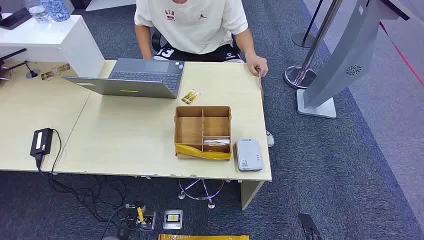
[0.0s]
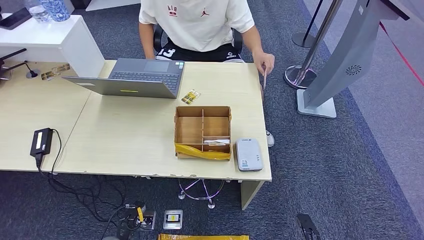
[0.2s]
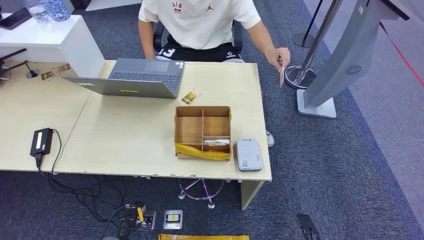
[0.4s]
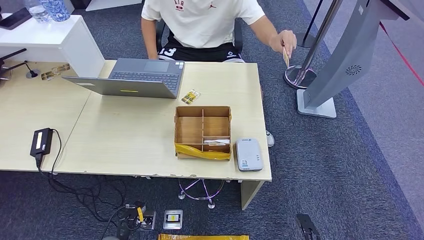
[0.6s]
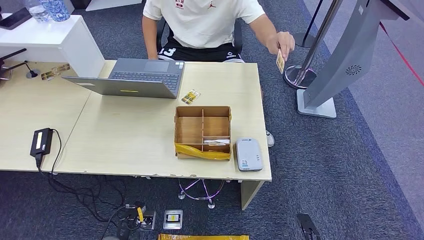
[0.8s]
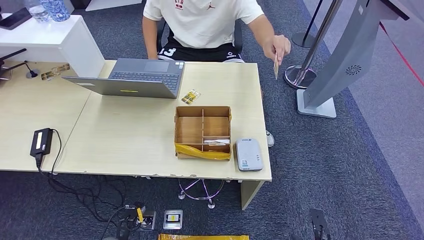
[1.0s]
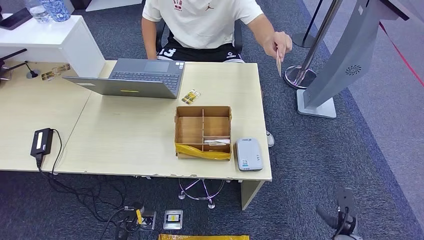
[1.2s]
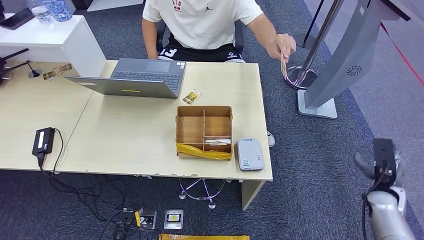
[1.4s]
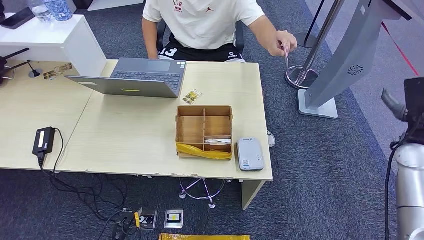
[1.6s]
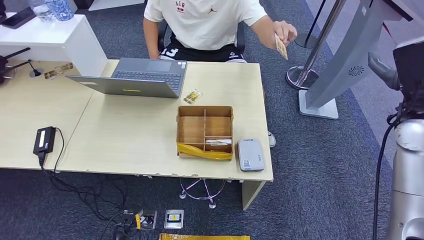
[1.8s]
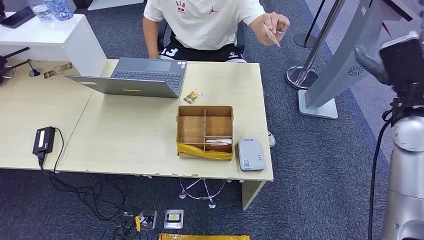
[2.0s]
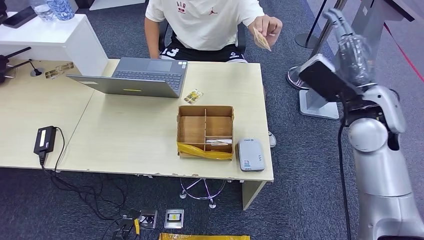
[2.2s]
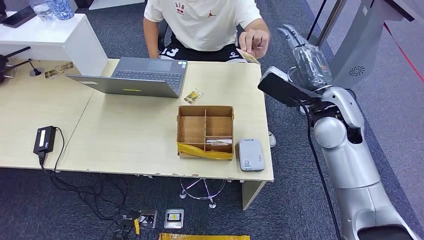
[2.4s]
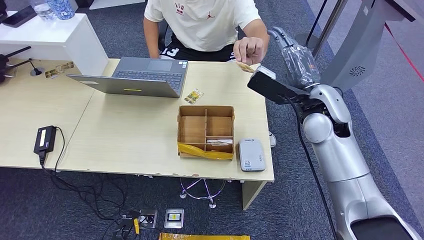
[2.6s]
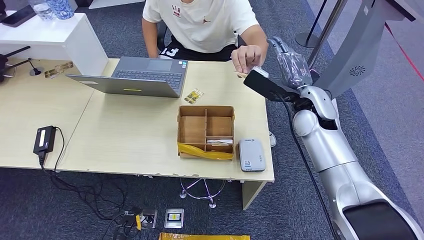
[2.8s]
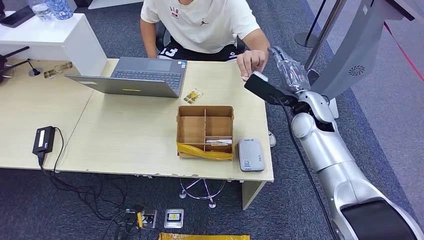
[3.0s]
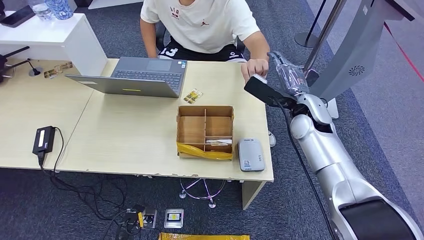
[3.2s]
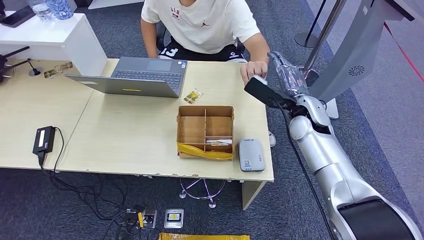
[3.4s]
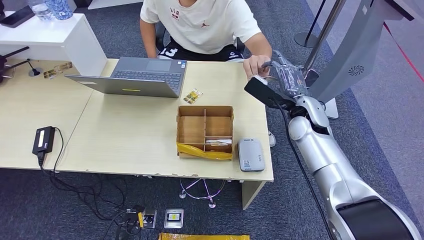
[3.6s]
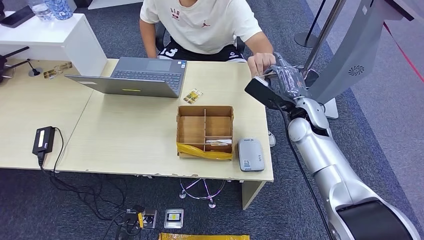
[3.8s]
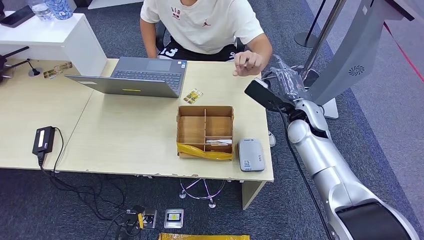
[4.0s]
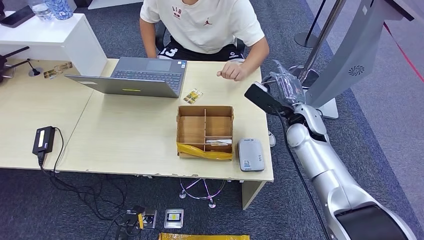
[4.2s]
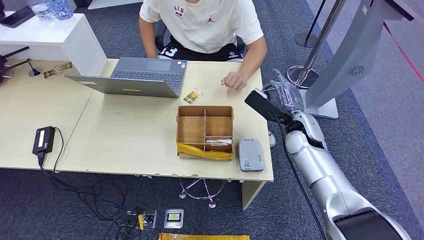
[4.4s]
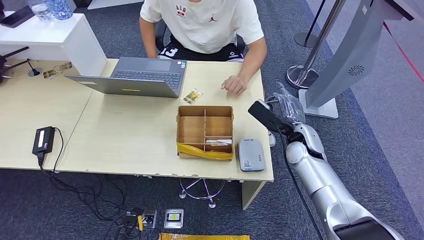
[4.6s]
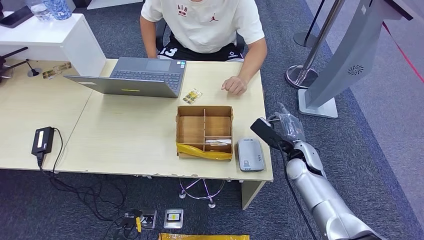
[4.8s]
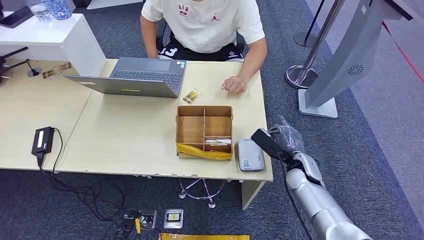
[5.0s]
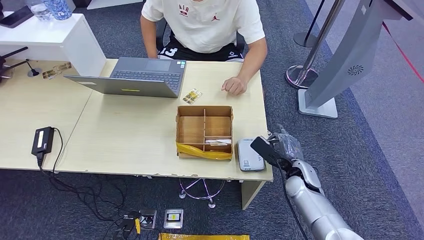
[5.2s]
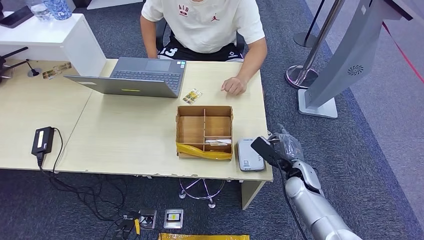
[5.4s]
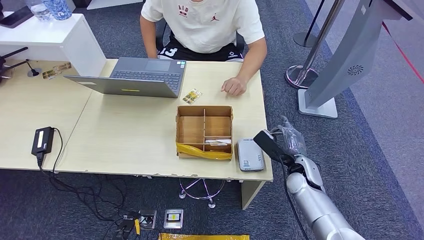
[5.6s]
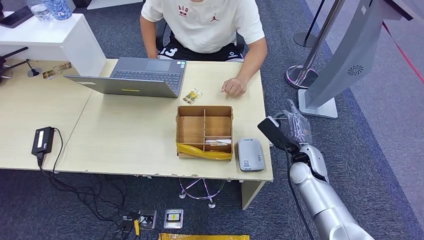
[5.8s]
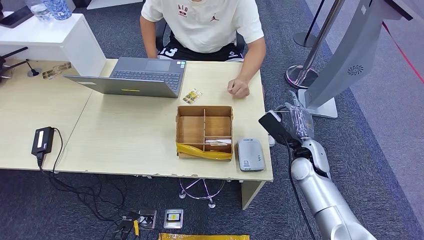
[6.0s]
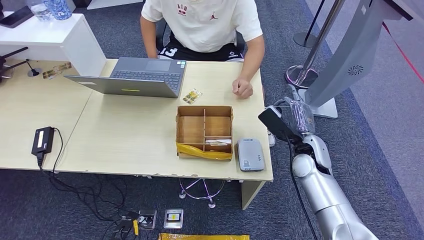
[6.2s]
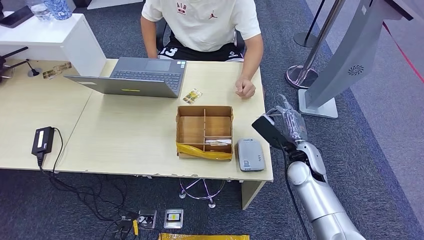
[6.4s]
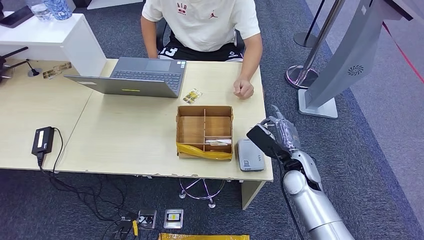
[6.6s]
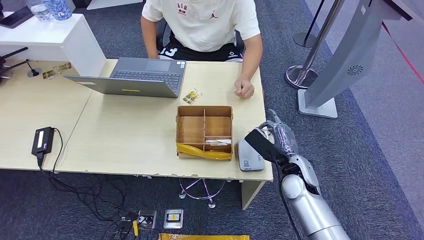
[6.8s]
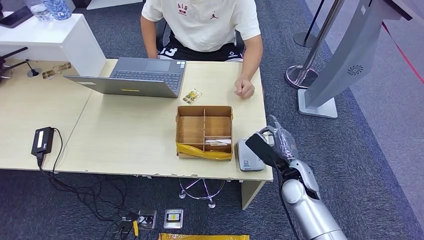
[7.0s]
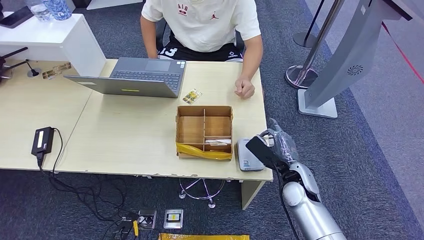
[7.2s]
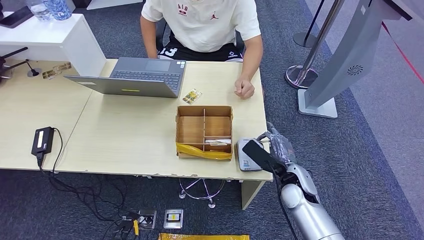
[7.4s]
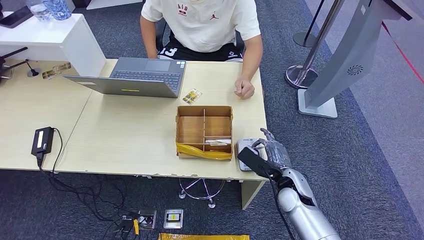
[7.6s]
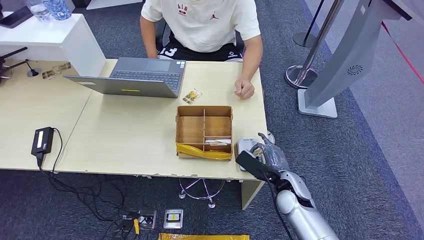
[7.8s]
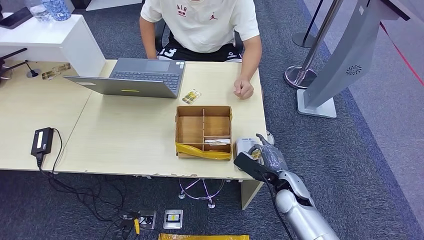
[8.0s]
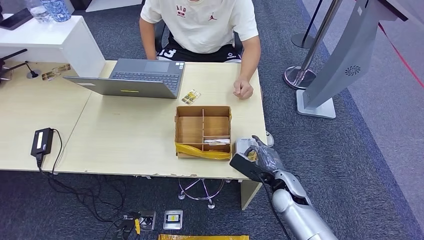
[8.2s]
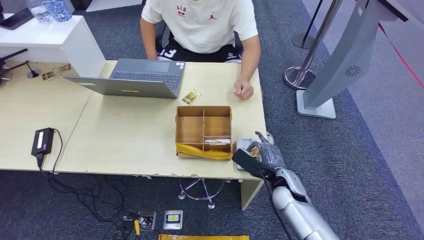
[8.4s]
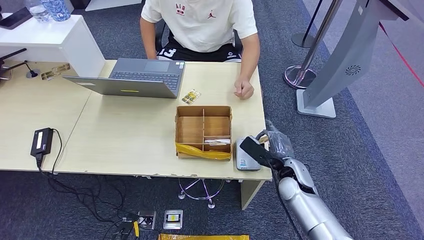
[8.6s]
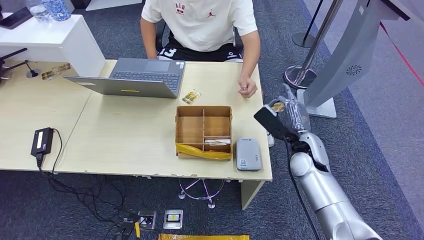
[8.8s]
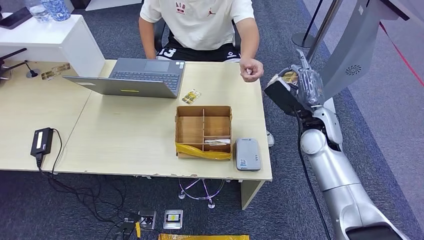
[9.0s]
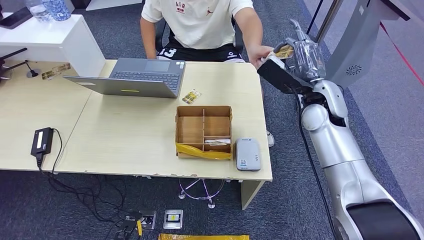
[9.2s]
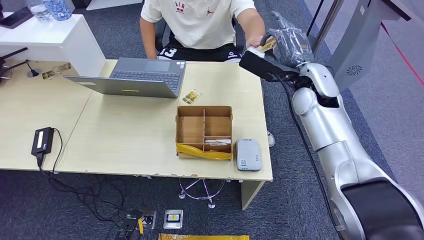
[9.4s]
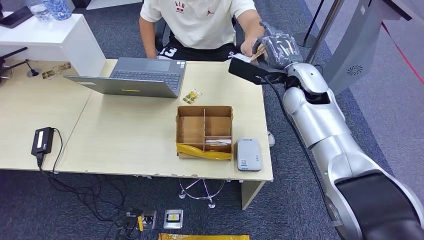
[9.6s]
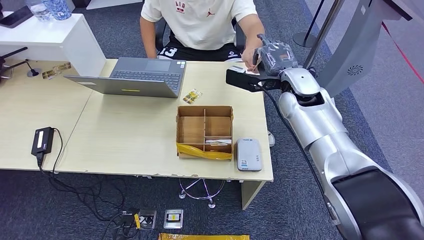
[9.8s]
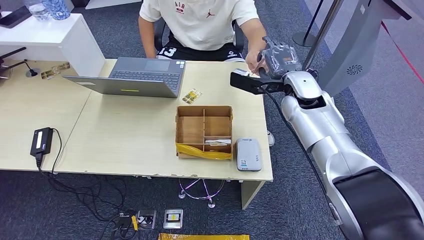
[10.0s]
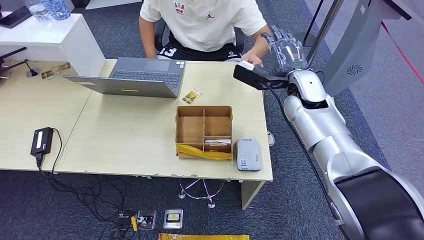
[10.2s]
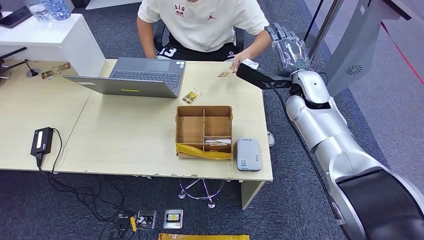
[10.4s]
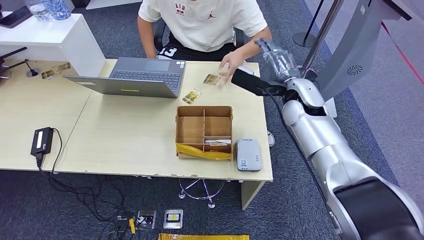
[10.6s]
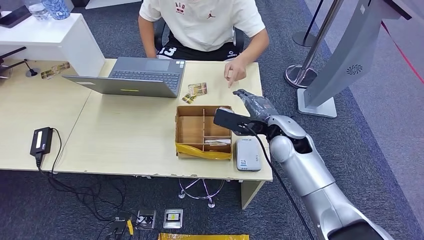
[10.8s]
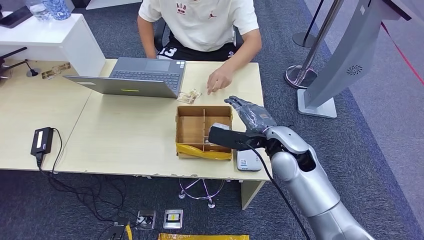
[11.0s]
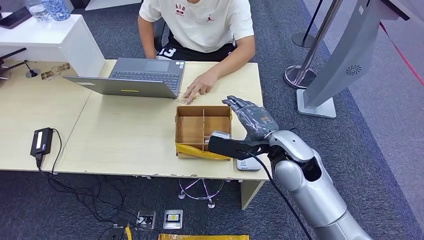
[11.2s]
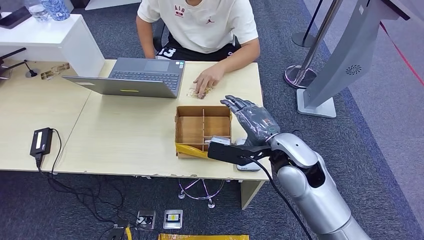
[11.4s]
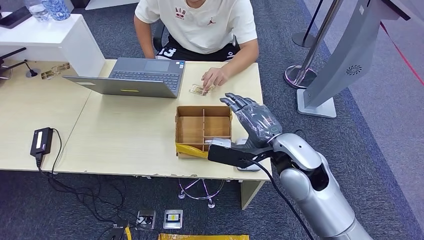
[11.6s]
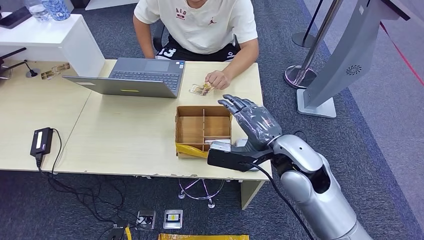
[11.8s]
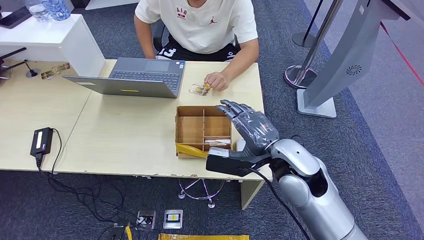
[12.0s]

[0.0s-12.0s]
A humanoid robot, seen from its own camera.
Step, 0.0s to 4.2s: Take the ID card from the person's hand.
Step, 4.4s to 7.6s: Place the ID card on the card reader.
Step, 7.8s to 9.8s: Hand the ID card to the person.
3.0s to 4.4s: The right hand moves downward, roughly 5 cm.
4.4s to 6.0s: The right hand shifts approximately 5 cm downward.
6.0s to 7.6s: The right hand goes approximately 10 cm backward and downward.
7.6s to 9.0s: The right hand heads upward and forward, covering about 20 cm.
9.0s to 10.4s: The right hand shifts some 10 cm upward and forward.

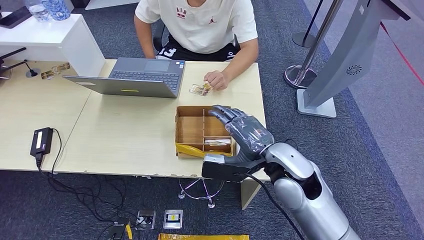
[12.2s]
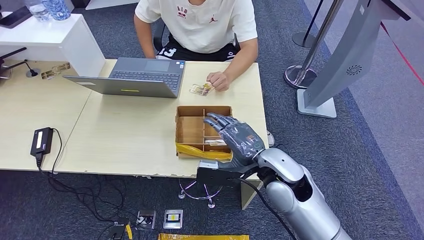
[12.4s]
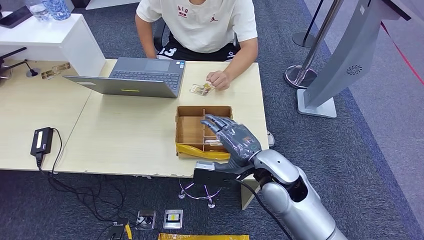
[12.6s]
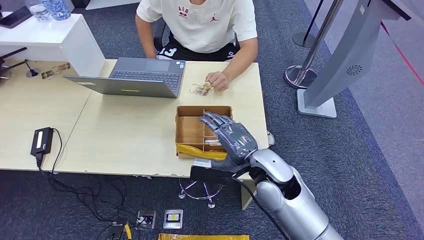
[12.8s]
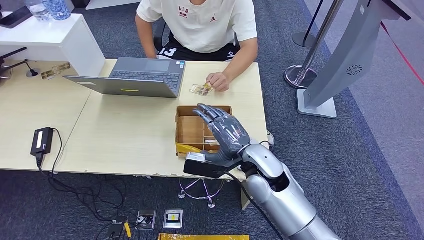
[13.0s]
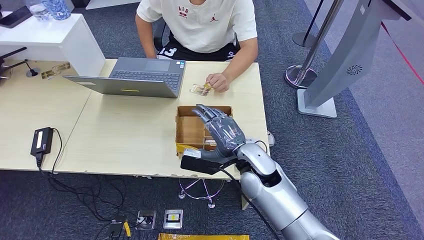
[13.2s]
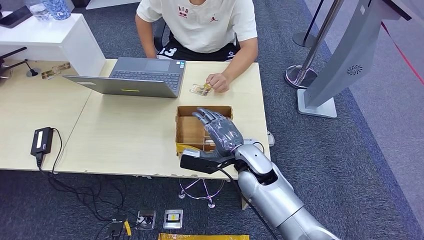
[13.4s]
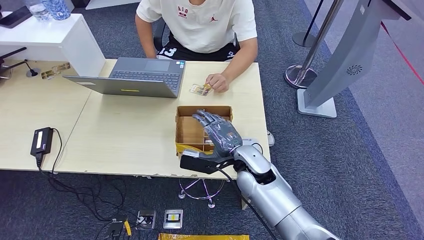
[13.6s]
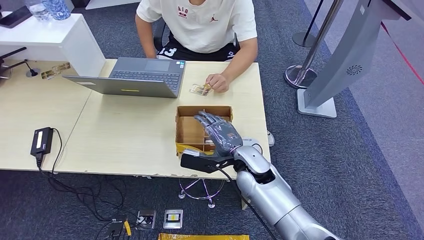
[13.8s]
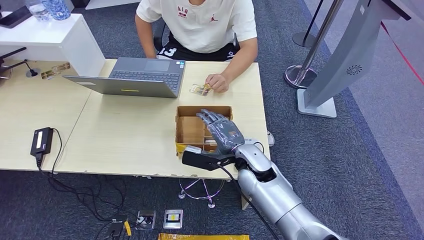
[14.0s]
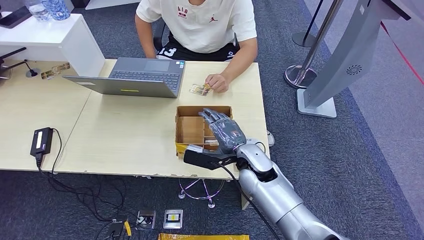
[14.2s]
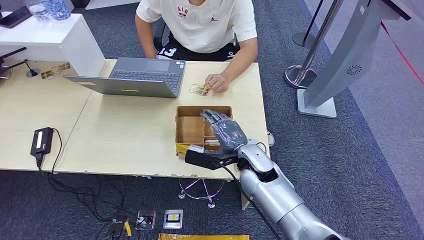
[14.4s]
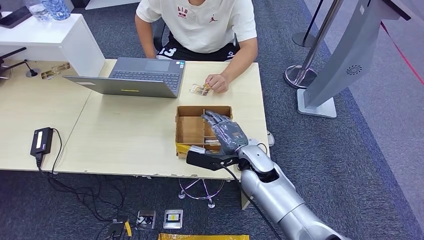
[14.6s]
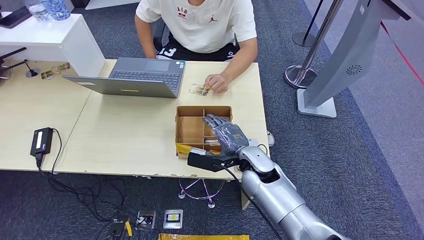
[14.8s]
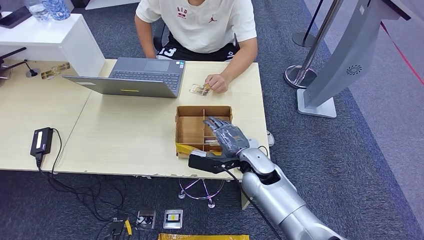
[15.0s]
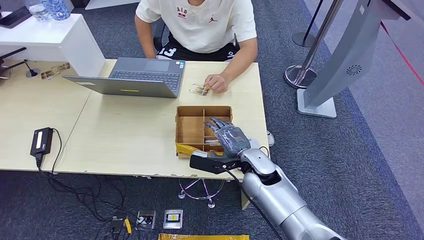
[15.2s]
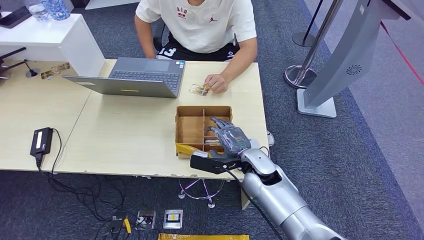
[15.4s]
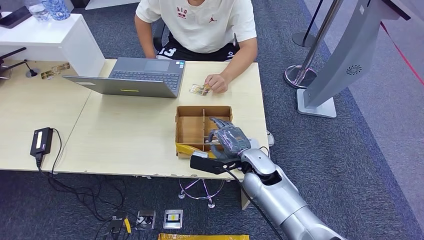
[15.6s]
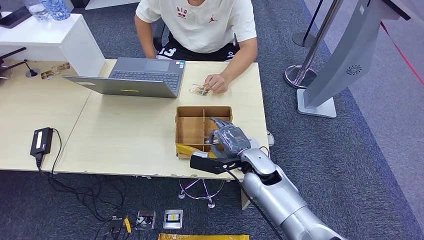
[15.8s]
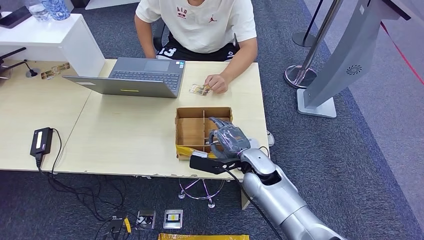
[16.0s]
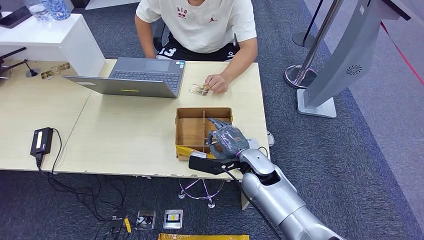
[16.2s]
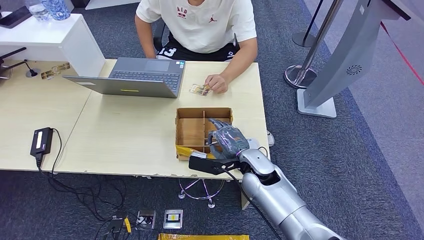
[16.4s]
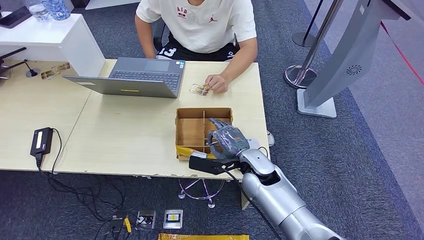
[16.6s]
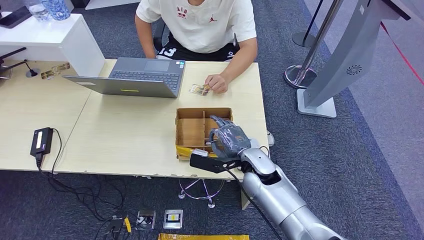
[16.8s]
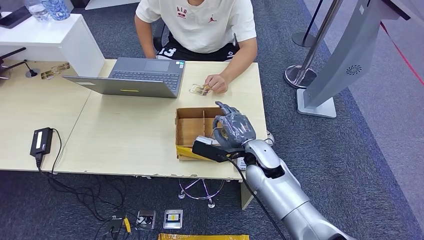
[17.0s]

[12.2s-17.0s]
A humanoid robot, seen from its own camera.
12.2s to 13.8s: The right hand shifts some 10 cm downward and to the left.
13.8s to 17.0s: There are only small adjustments of the hands.
